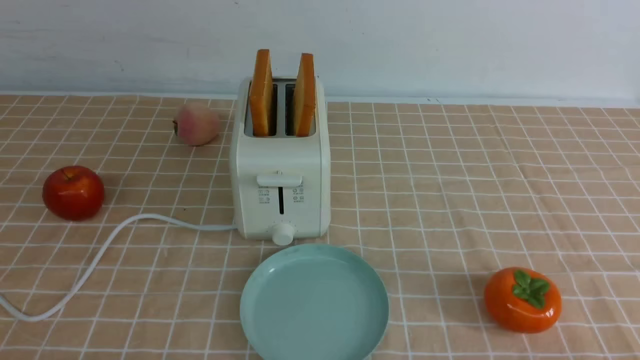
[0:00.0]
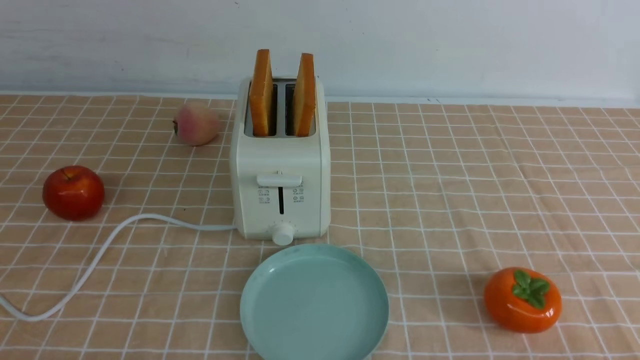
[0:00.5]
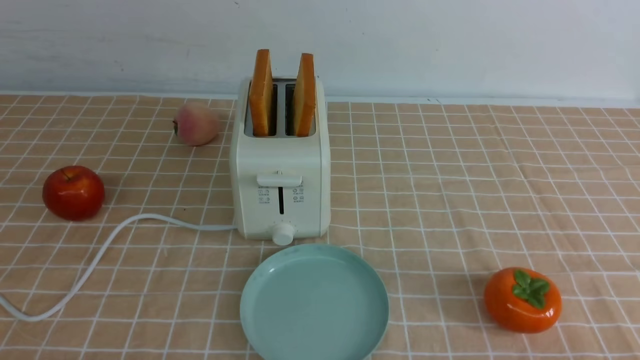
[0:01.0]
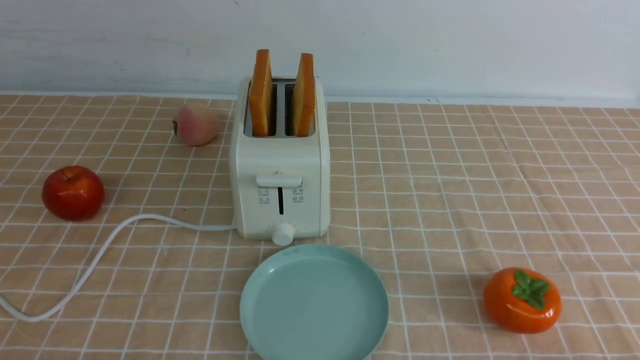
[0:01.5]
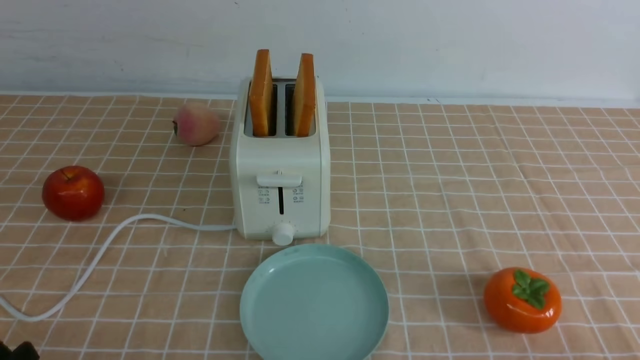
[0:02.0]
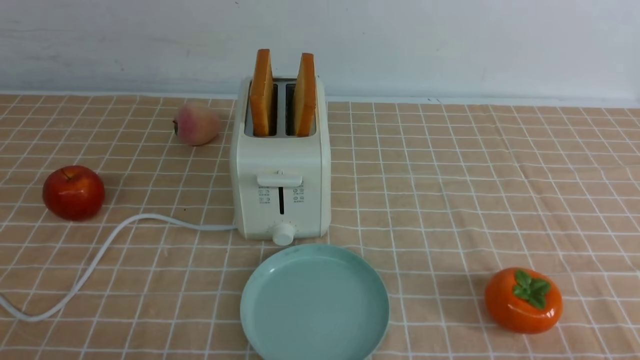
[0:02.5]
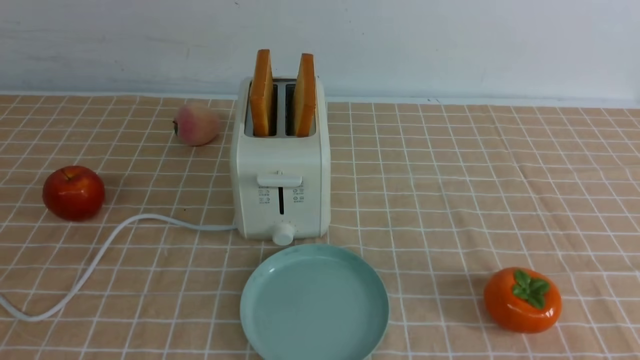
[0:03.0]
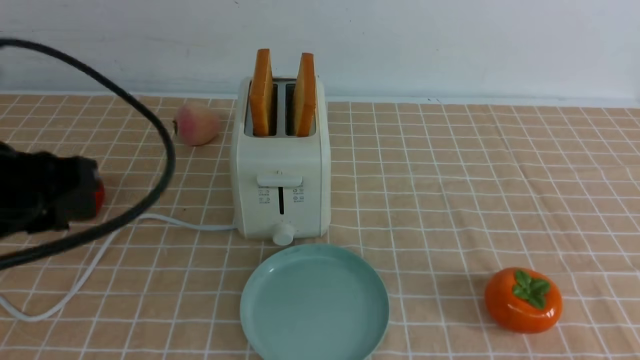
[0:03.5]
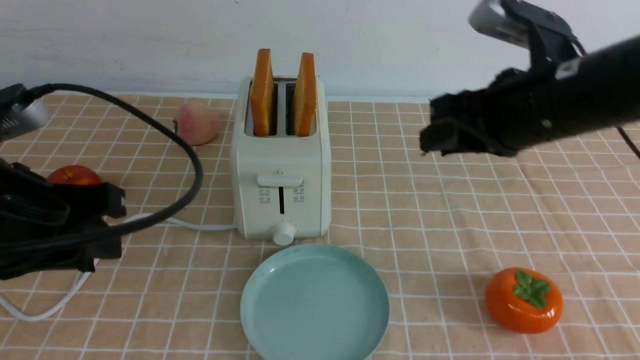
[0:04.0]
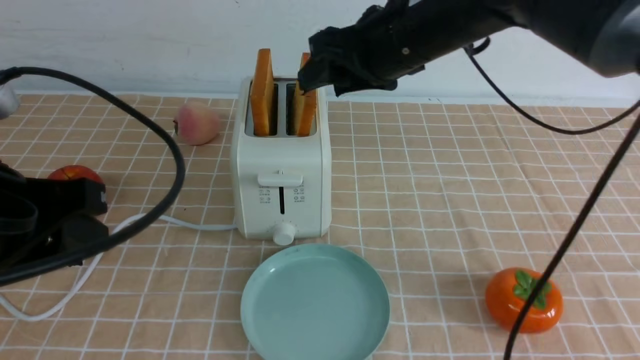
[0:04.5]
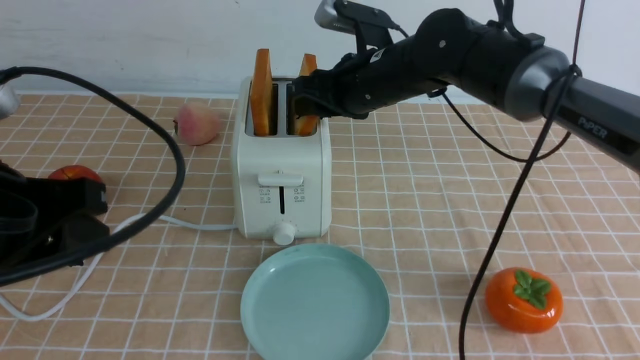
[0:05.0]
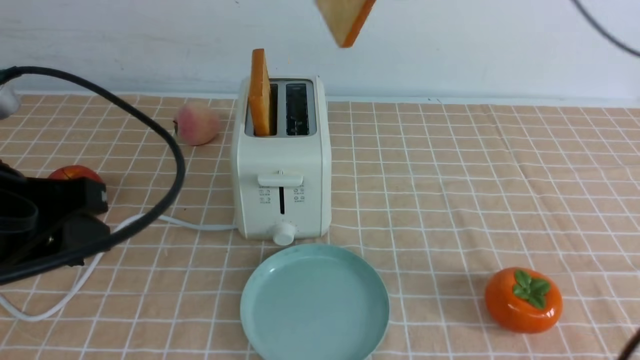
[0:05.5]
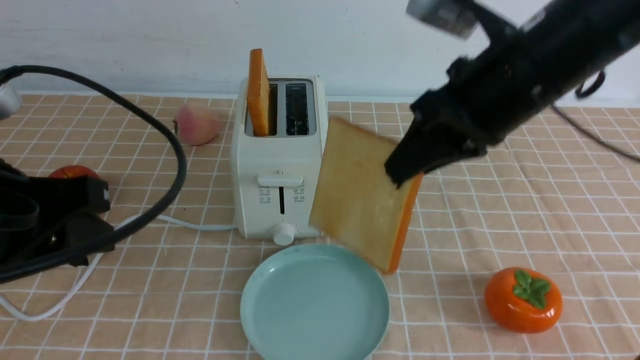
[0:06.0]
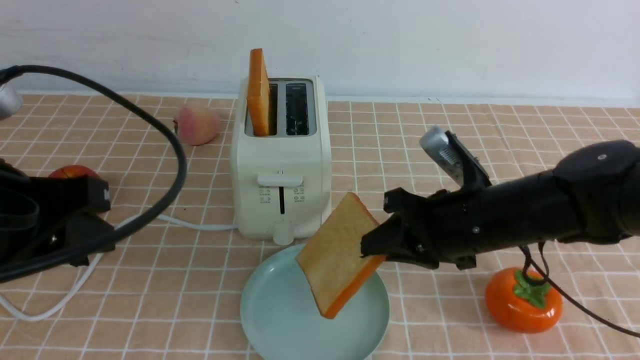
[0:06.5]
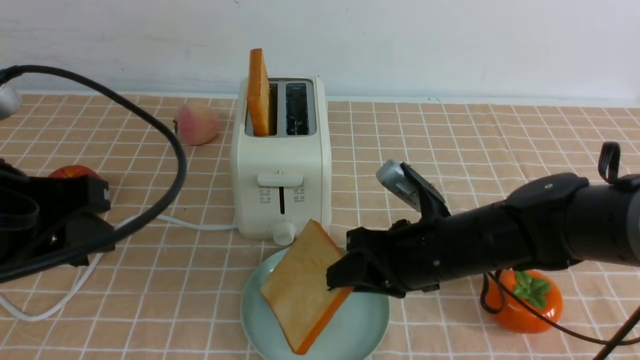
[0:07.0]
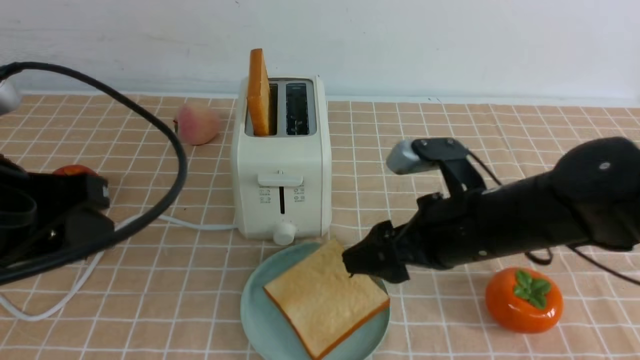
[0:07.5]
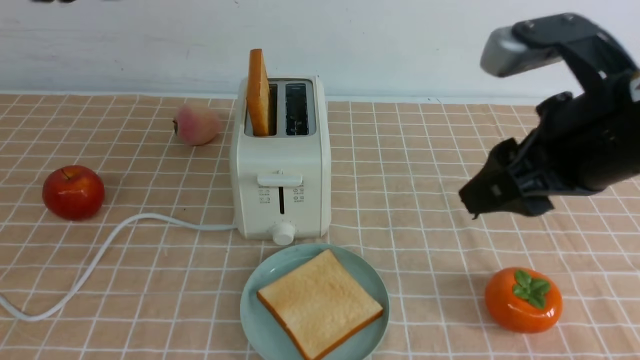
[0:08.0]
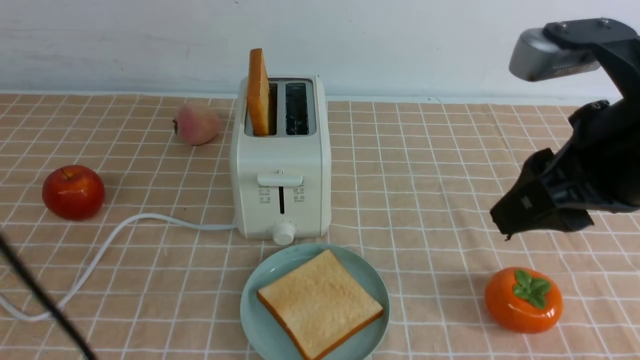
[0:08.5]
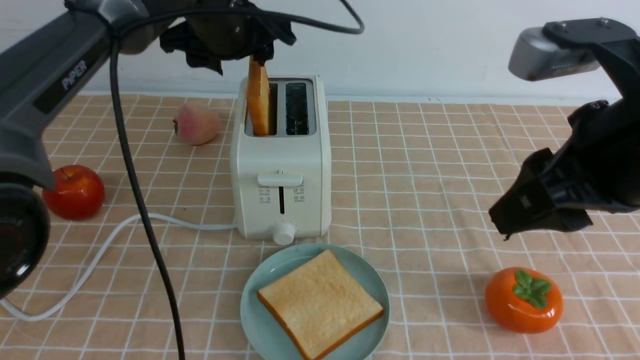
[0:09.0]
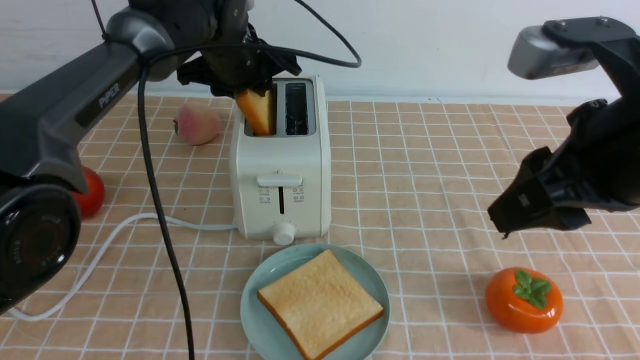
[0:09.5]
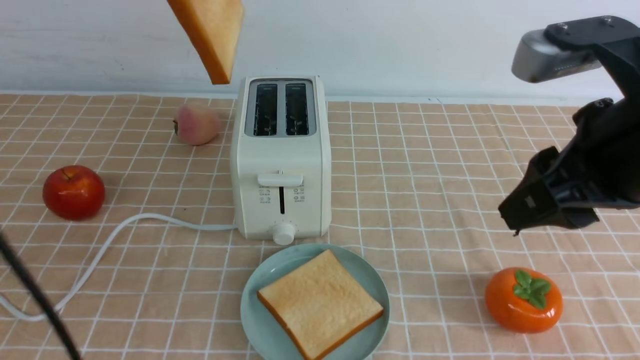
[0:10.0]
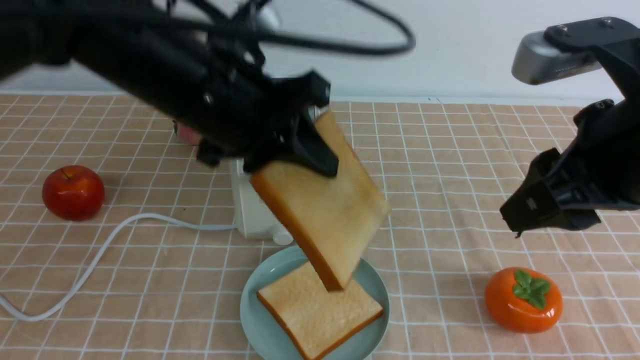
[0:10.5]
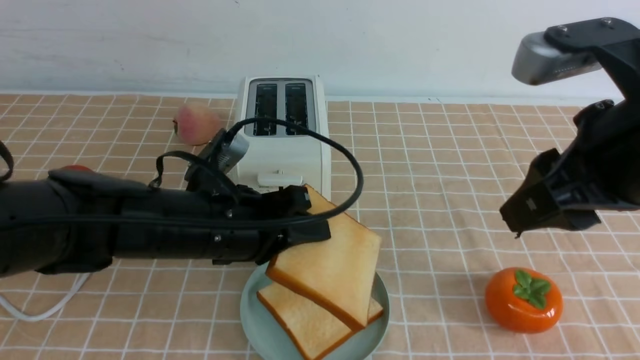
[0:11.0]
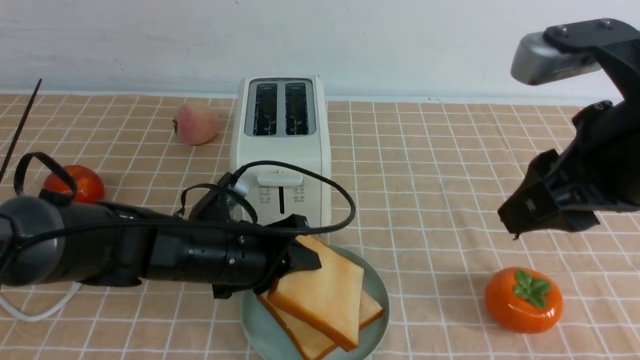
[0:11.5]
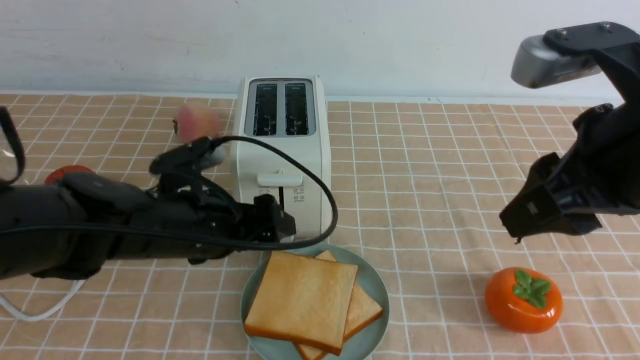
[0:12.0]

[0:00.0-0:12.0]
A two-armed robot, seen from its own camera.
Task of the whole recording: take toasted bread from bread machine on light coffee tablecloth place on plate.
Step, 0:00.0 to 0:05.0: use the right arm to take out a slice of bread.
Step, 0:05.5 to 0:07.5: use the right arm to put a slice of bread into the plate.
Step, 0:08.0 to 0:09.5: use the left arm to take out a slice of bread.
Step, 0:10.0 to 0:11.5: use the left arm to put a slice of bread into the empty plate.
0:02.0 to 0:04.0: The left gripper heads forward and upward, covering about 20 cm, while the right gripper travels forward, upward and to the left by approximately 30 cm.
0:04.0 to 0:06.0: The right gripper is displaced to the left by approximately 5 cm, and reaches approximately 15 cm forward, then returns.
0:06.0 to 0:08.0: The left gripper shifts roughly 10 cm upward, and opens up, while the right gripper goes roughly 10 cm backward, travels downward and back again, approximately 20 cm each way, and opens its fingers.
0:08.0 to 0:10.0: The left gripper travels forward by roughly 20 cm, and closes up.
0:10.0 to 0:12.0: The left gripper heads downward and backward, covering some 25 cm, and opens up.

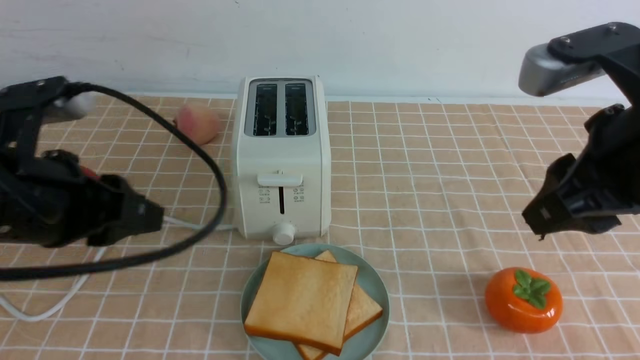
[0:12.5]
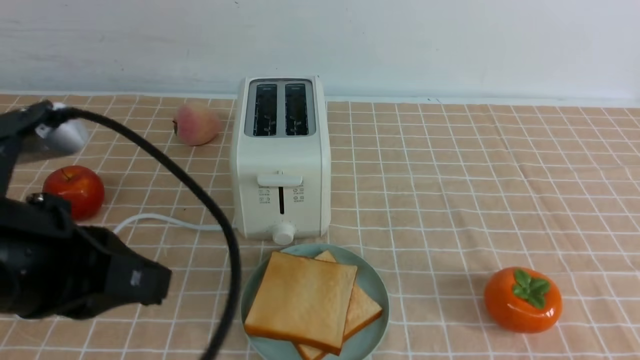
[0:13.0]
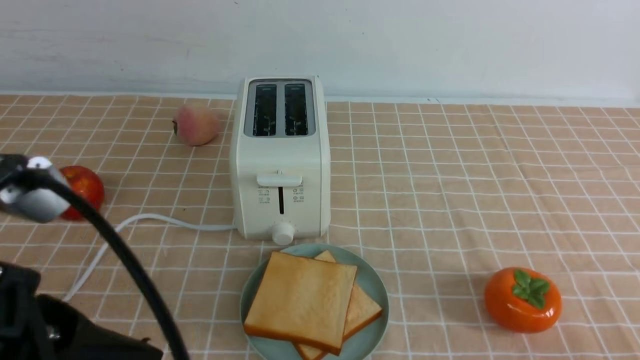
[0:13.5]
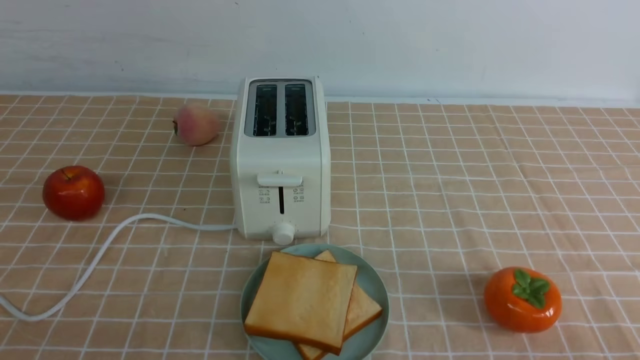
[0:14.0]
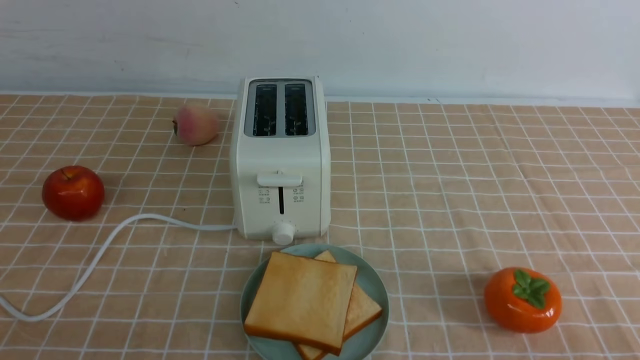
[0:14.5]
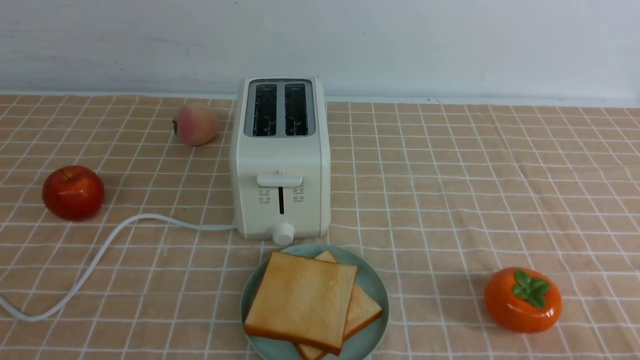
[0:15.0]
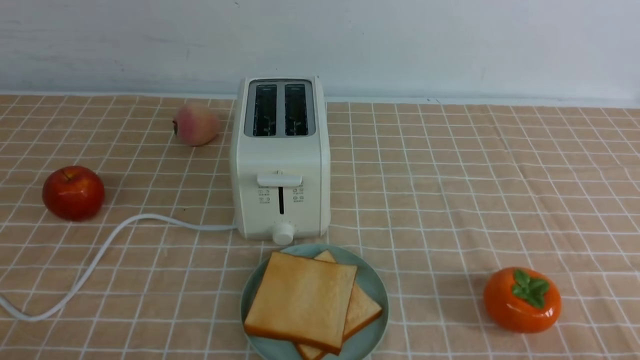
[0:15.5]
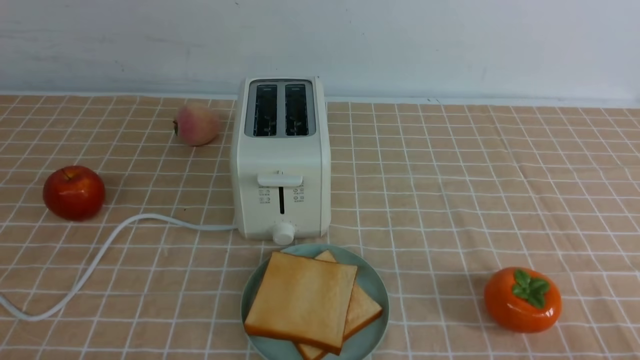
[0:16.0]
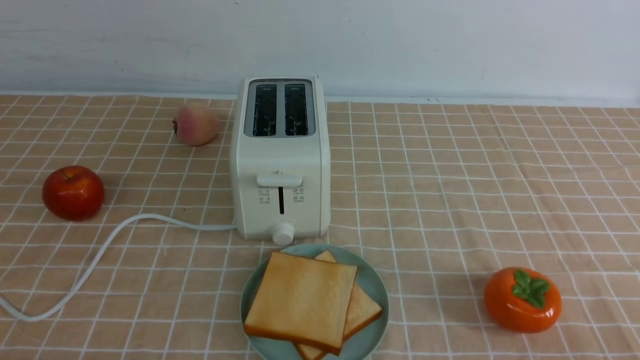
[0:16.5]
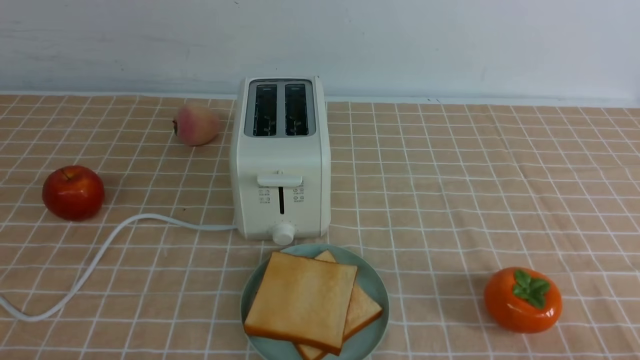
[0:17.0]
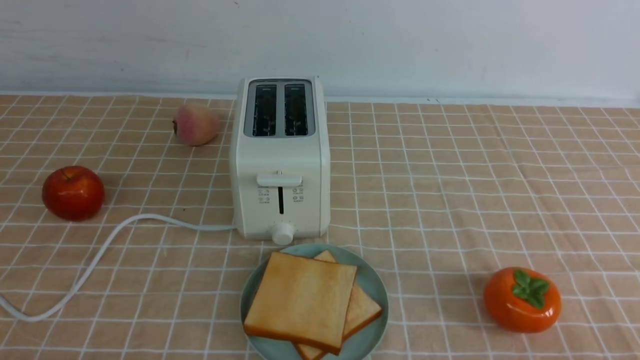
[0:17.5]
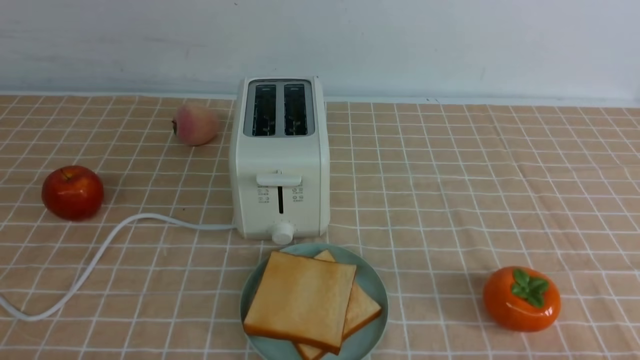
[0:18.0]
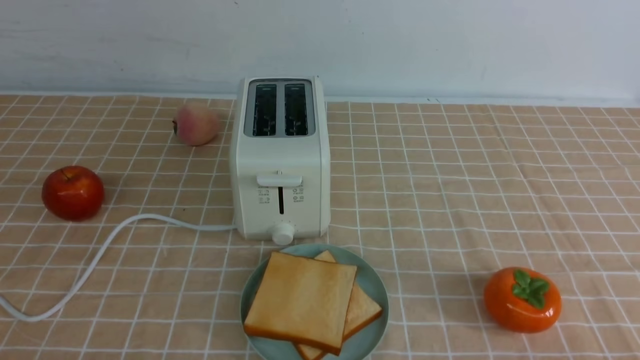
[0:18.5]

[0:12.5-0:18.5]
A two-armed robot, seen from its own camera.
Task of the whole recording: take toasted bread from bread machine on light coffee tablecloth place on plate.
0:12.5 to 0:14.5: The left gripper is displaced backward by approximately 20 cm, and closes. Meanwhile the right gripper goes about 25 cm backward, downward and to the right, and closes its fingers.

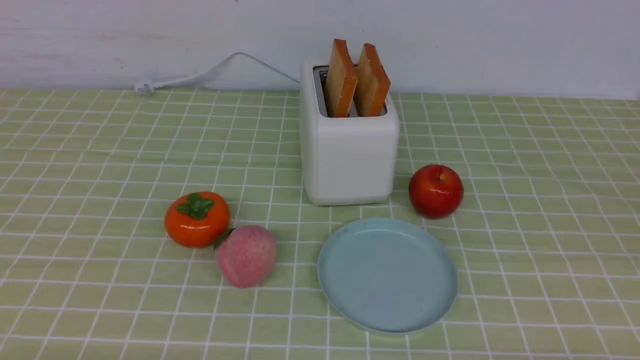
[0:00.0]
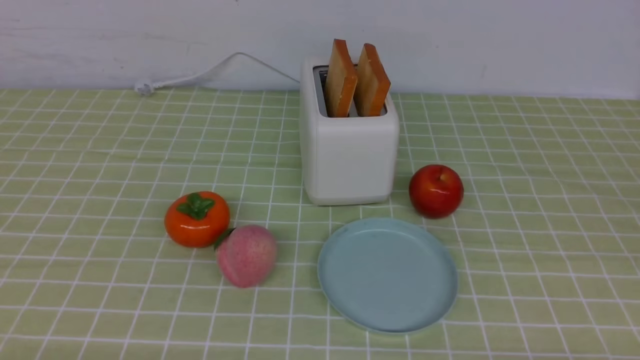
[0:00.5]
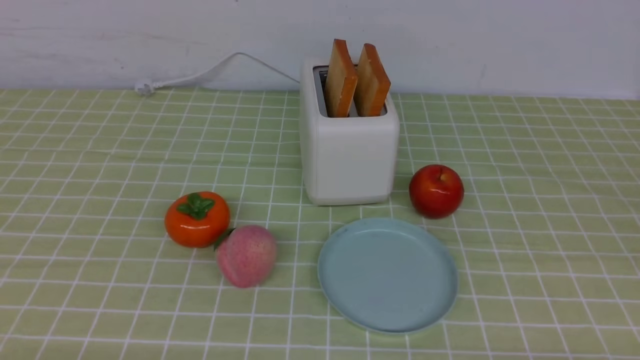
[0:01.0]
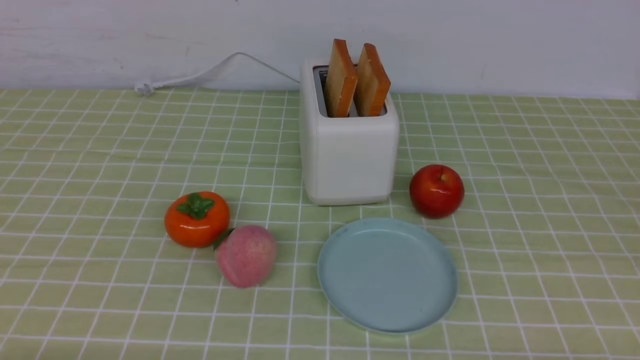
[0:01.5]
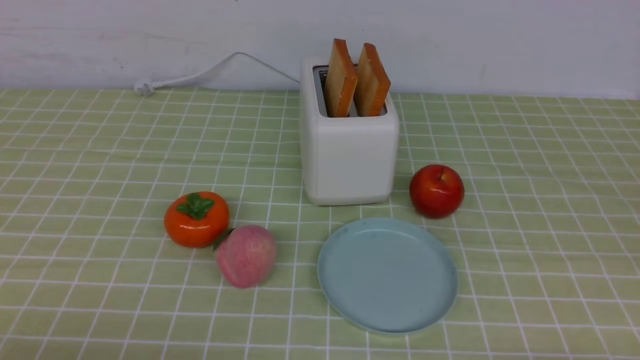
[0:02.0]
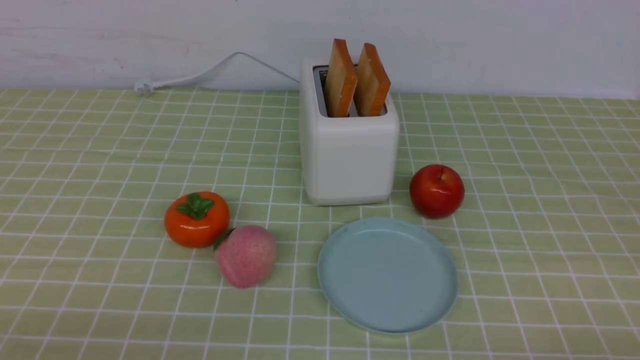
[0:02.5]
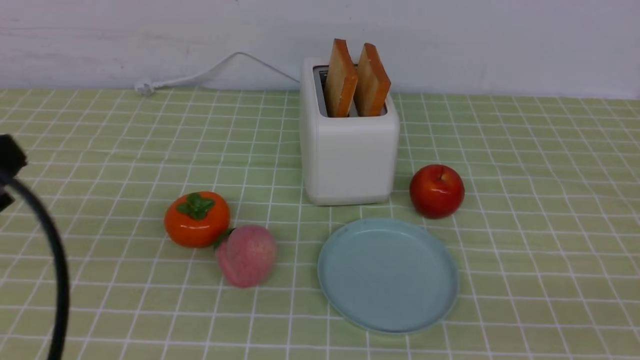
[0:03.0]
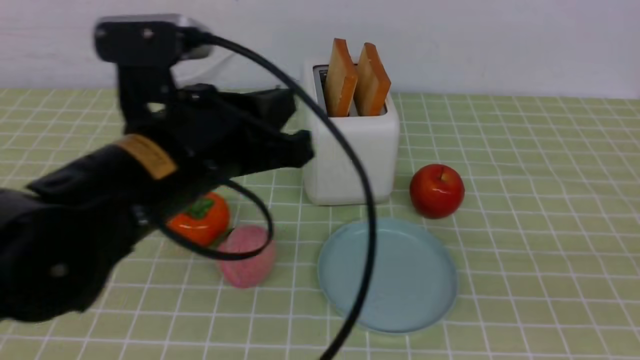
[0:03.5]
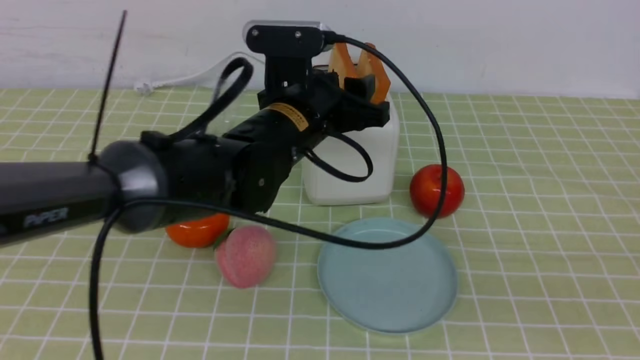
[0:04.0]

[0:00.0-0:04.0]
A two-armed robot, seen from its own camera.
Task of the whole recording: take toasted bread from bread machine on green coffee tablecloth place on plate.
0:02.0 to 0:04.0: The left gripper is displaced forward and to the right by approximately 35 cm, and closes and opens again, while the right gripper shifts some 15 cm upward.
